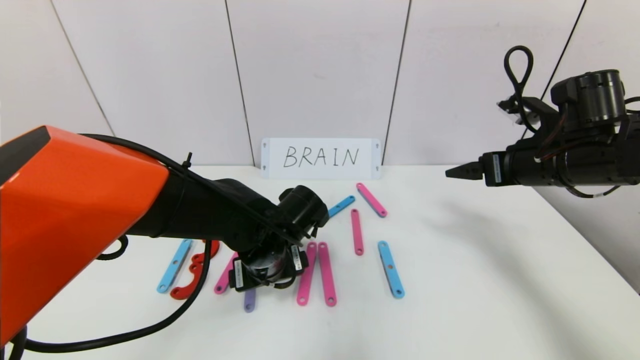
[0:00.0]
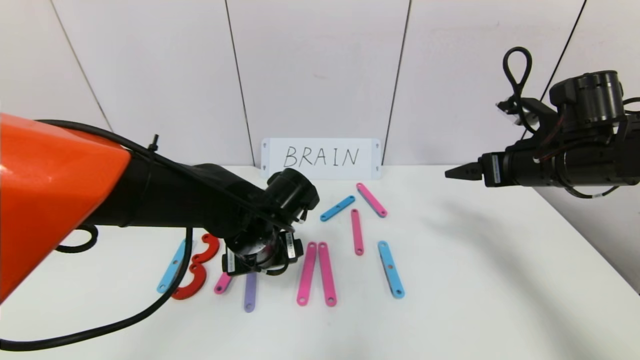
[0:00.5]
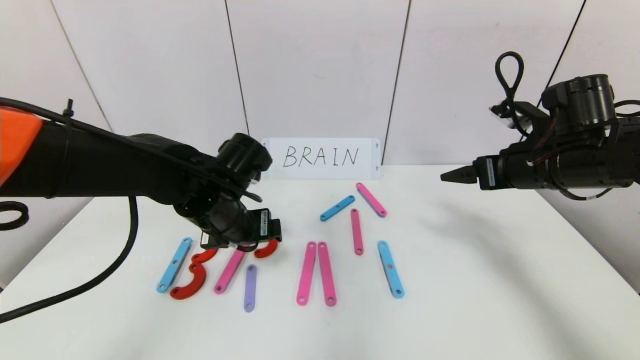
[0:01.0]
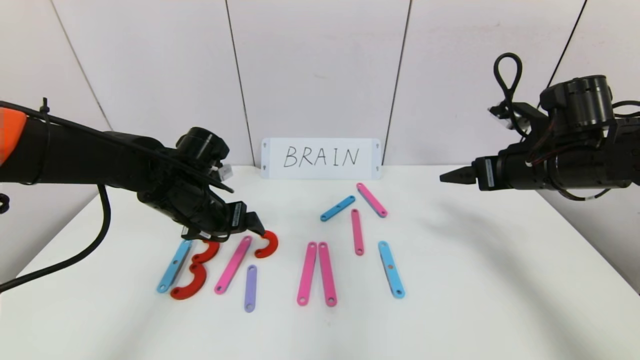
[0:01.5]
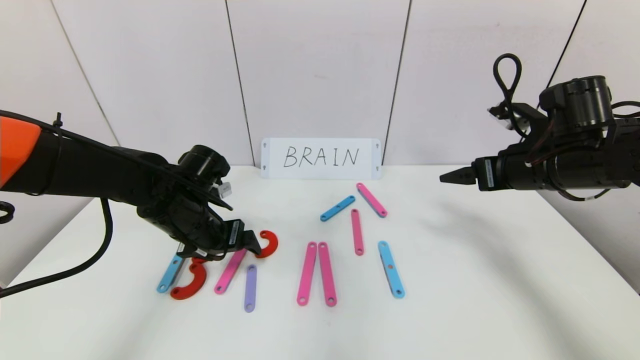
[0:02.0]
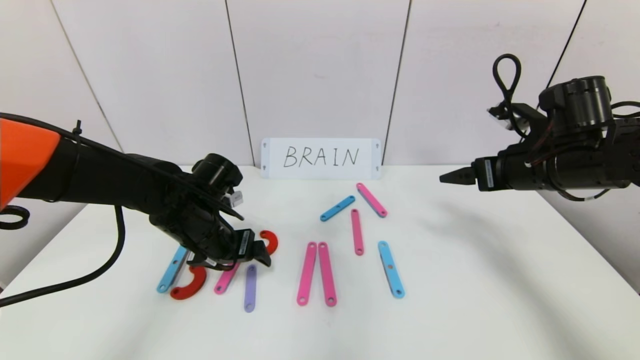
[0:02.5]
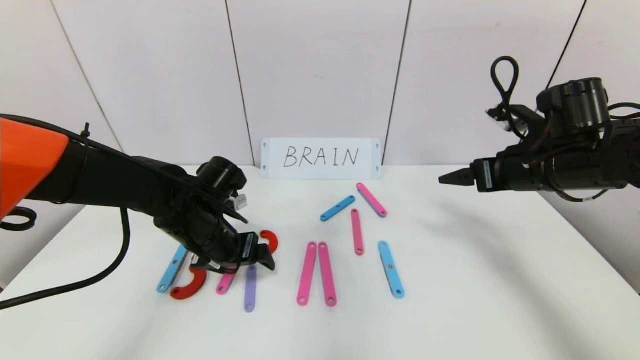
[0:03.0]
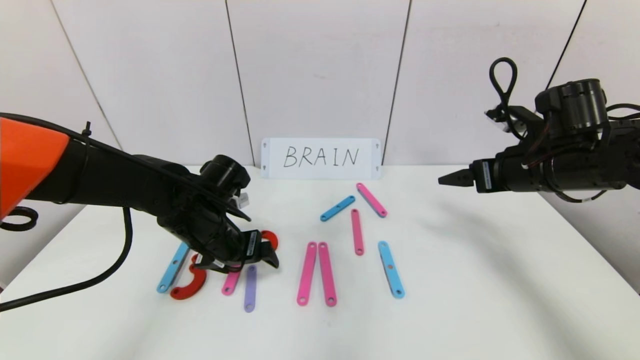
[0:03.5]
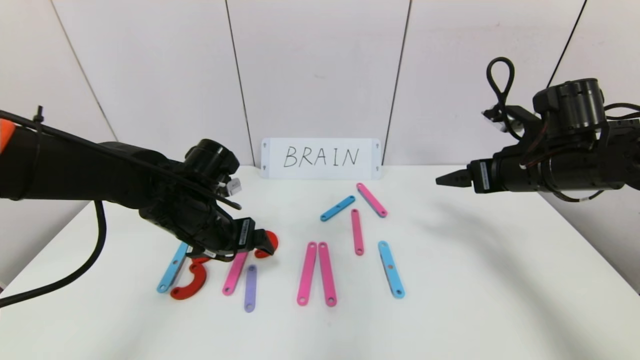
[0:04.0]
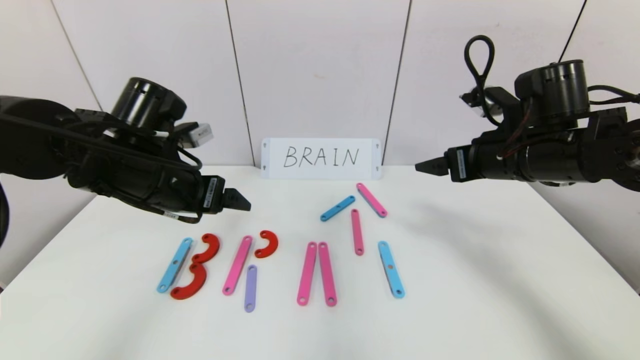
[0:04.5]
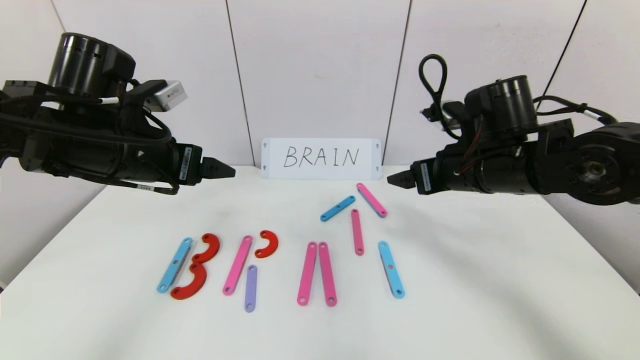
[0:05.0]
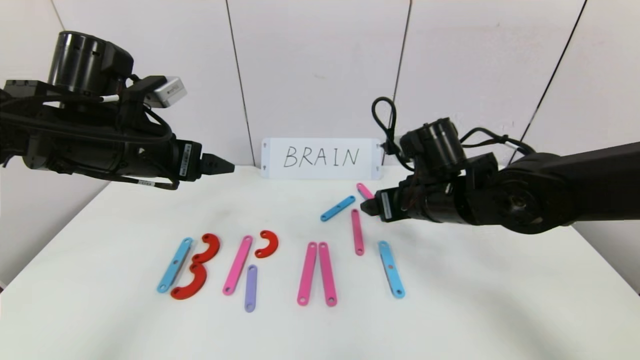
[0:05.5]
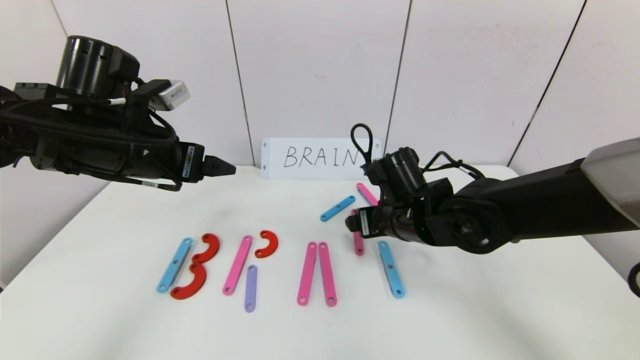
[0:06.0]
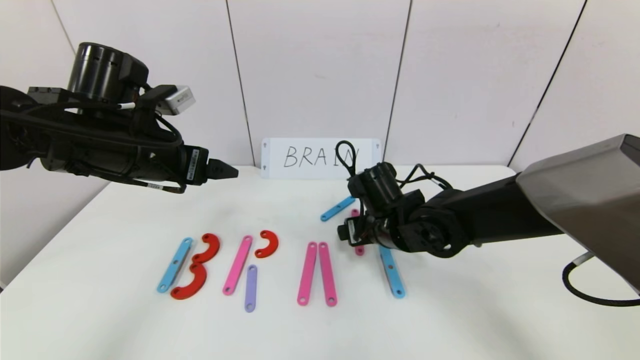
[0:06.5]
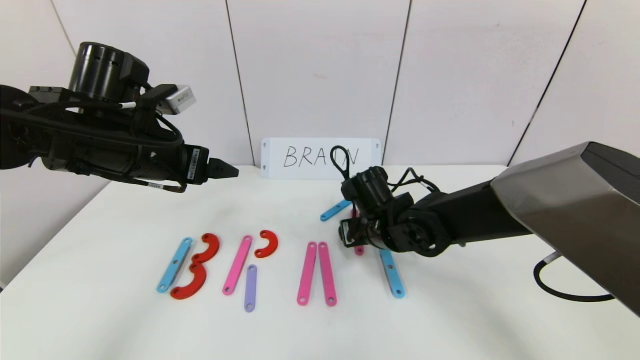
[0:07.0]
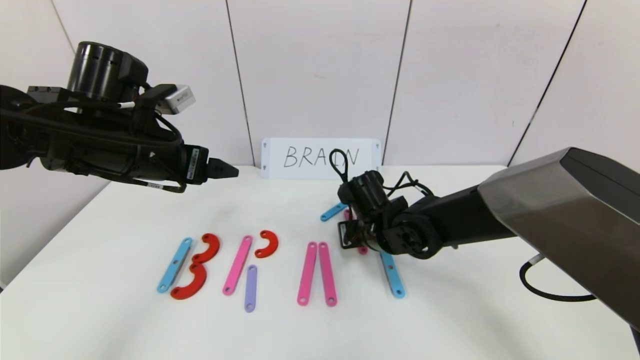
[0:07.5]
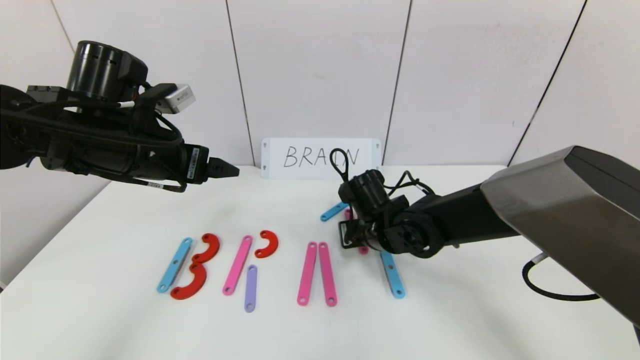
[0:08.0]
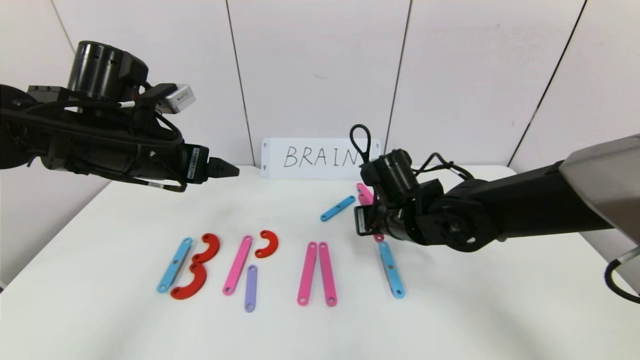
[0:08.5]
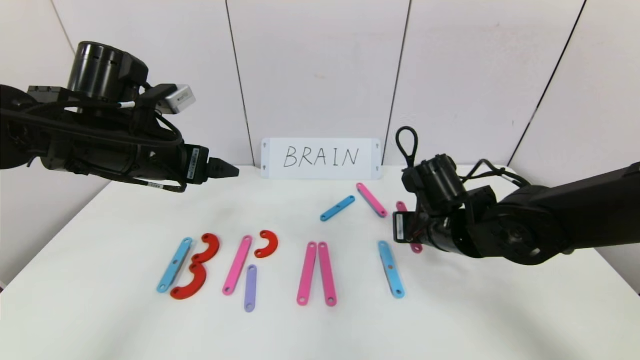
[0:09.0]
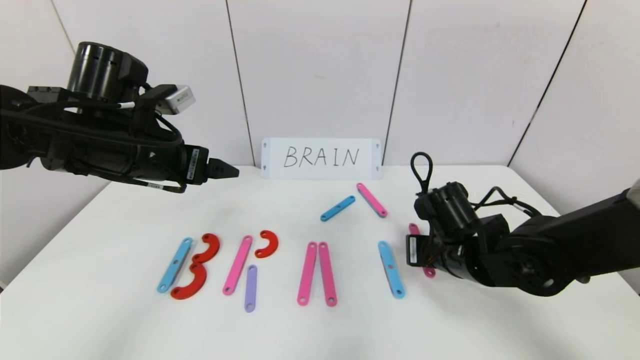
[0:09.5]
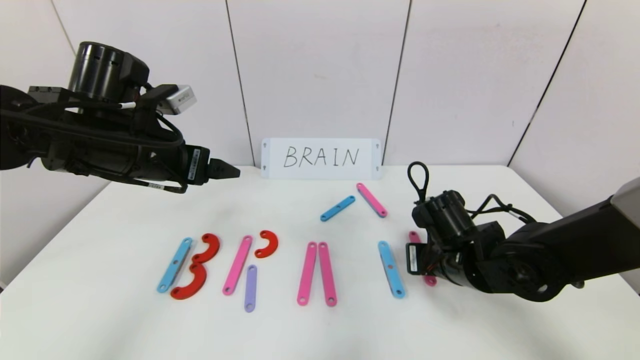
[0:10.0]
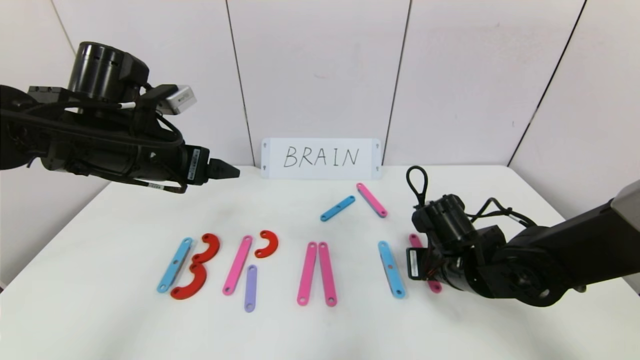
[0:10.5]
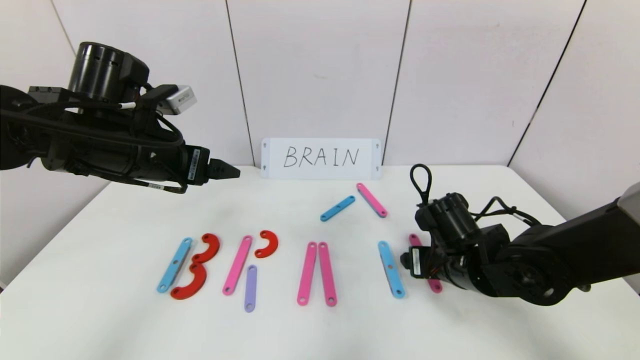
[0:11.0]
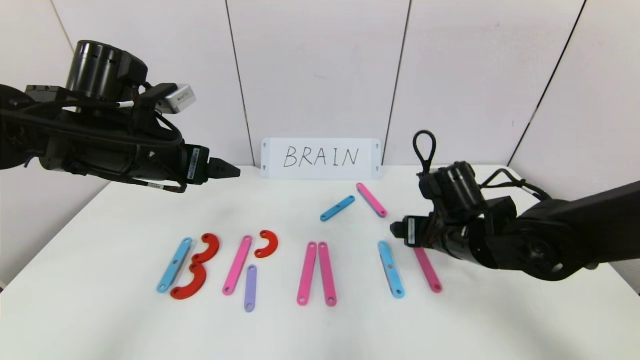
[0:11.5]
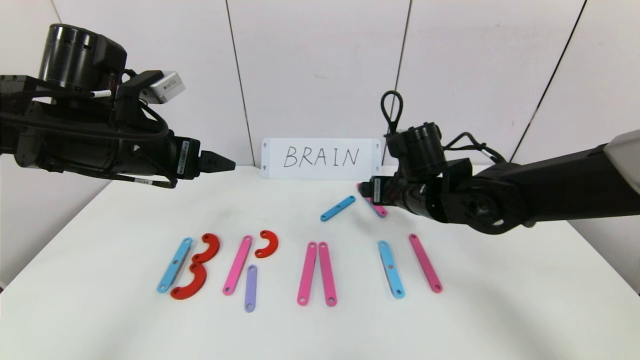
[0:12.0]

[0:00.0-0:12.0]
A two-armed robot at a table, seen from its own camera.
Task of the whole recording: rearrange the word baai as brain.
Step, 0:00.0 to 0:04.0: Place the character R between first character B and third character A.
0:00.0 to 0:02.0: The left gripper moves to the left, some 10 cm.
0:02.0 to 0:04.0: The grippers make only small movements.
0:04.0 to 0:06.0: The left gripper travels upward and to the left by roughly 10 cm. The right gripper is displaced to the left and downward by approximately 20 cm.
0:06.0 to 0:08.0: The right gripper ends up roughly 5 cm from where it was, and closes.
0:08.0 to 0:10.0: The right gripper is displaced to the right and backward by approximately 10 cm.
0:10.0 to 0:12.0: The right gripper shifts approximately 10 cm upward, forward and to the left, and opens up.

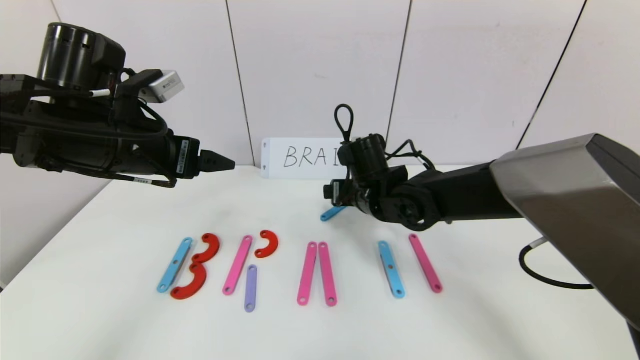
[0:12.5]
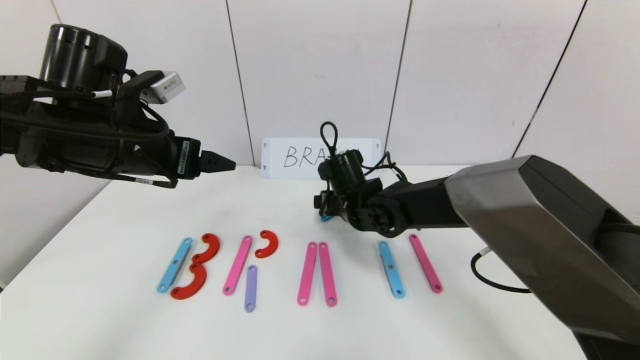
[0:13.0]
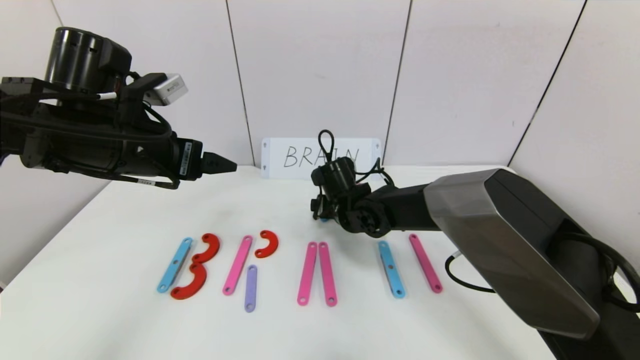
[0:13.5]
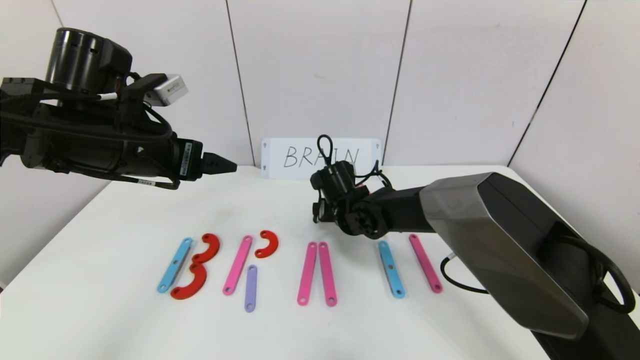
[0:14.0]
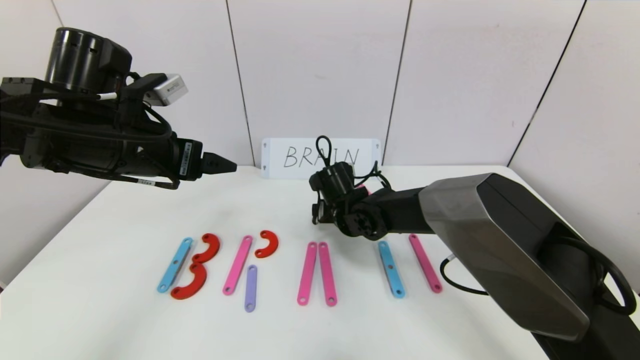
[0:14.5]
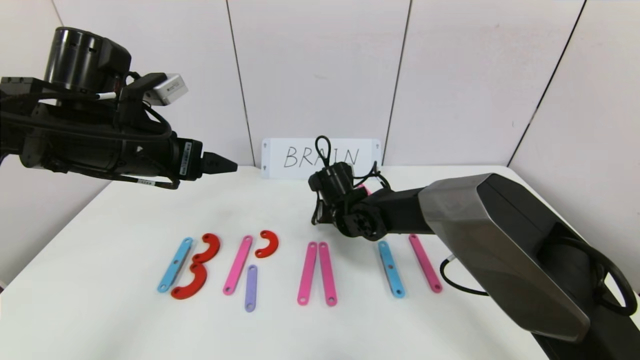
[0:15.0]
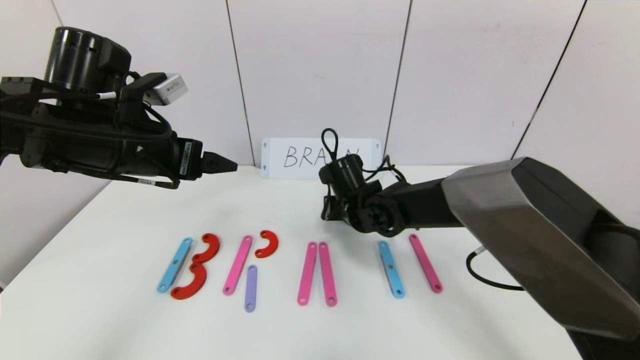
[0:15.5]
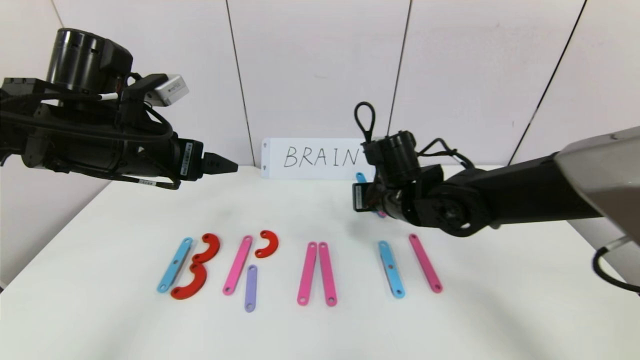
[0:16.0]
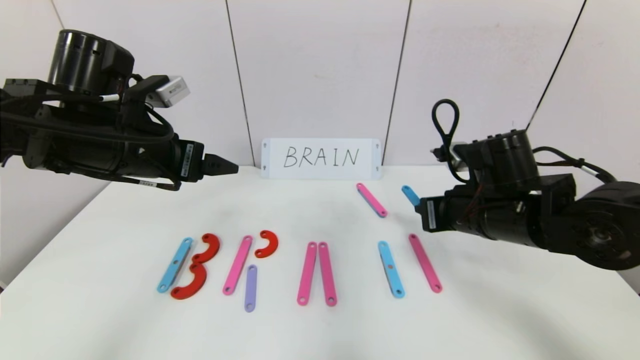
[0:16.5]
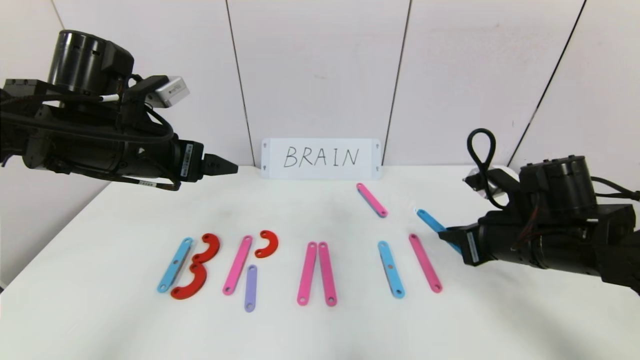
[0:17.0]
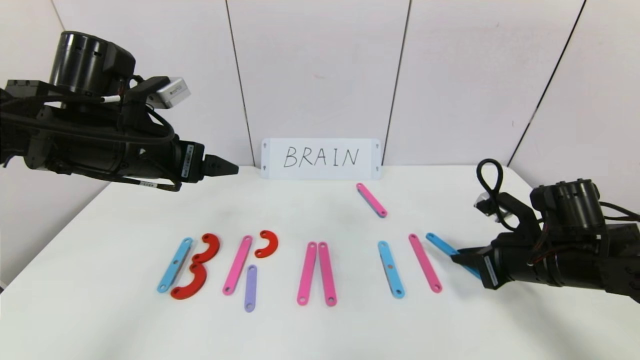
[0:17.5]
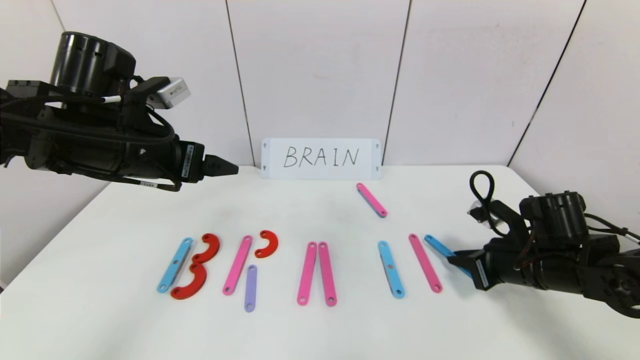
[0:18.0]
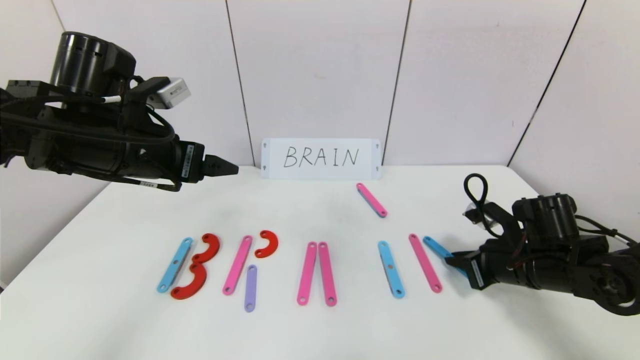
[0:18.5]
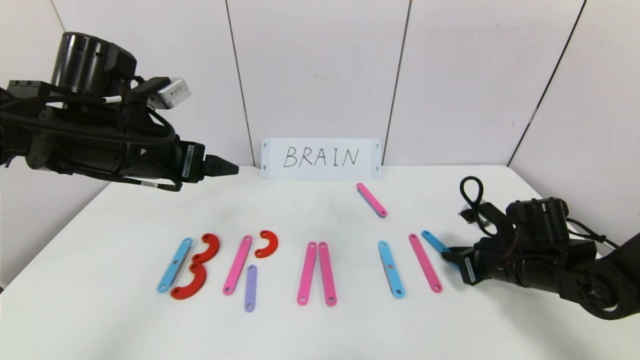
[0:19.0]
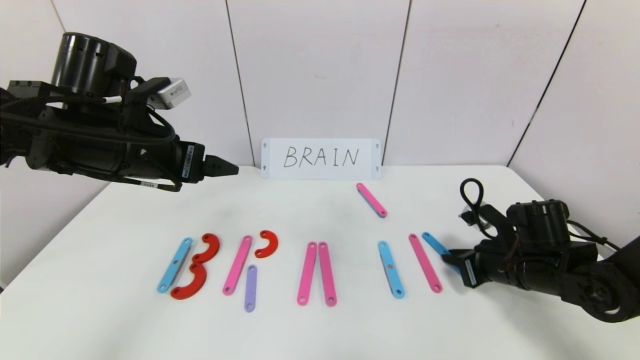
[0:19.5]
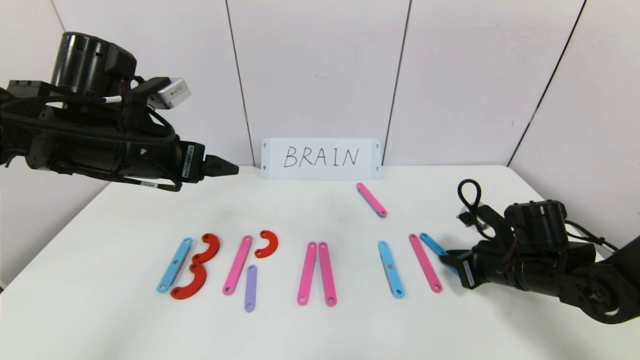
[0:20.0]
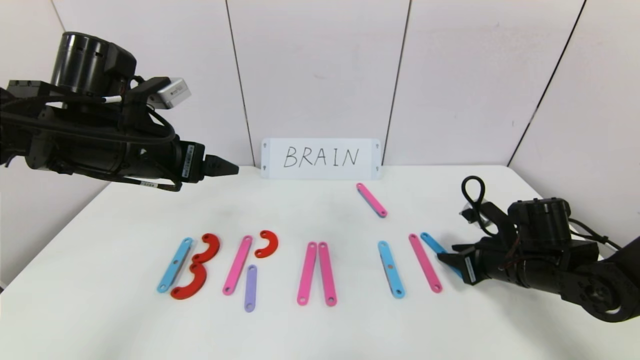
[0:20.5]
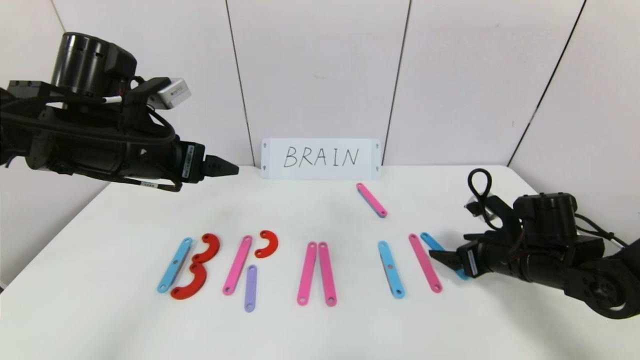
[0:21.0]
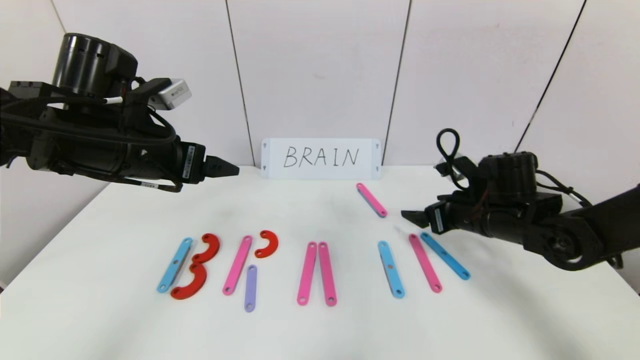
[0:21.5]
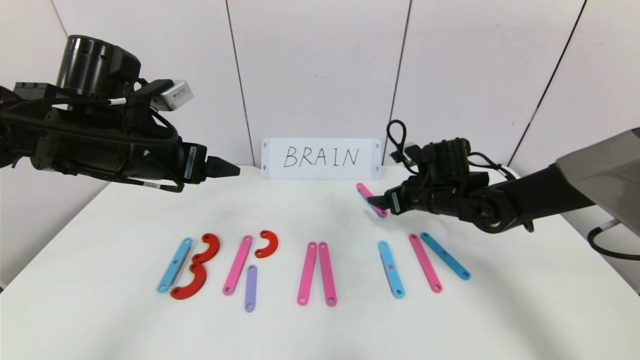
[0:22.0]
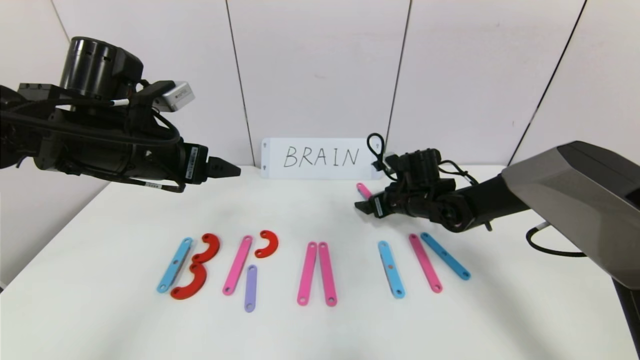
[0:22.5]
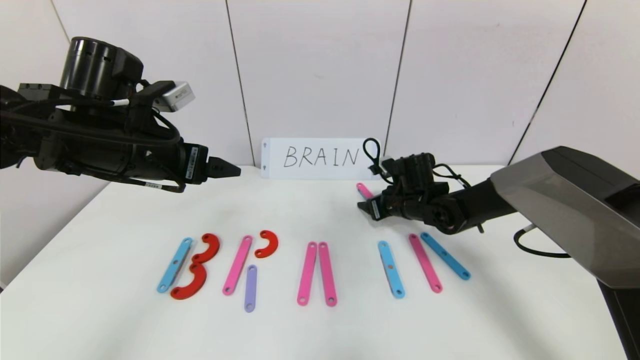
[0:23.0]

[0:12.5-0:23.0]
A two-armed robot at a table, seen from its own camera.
Task of the whole recording: rearrange the word baai as brain.
0:12.5 to 0:14.5: The right gripper travels downward by some 5 cm.
0:14.5 to 0:16.5: The right gripper moves to the right, backward and upward, some 25 cm, and closes its fingers.
0:16.5 to 0:19.0: The right gripper goes roughly 15 cm downward and to the right.
0:19.0 to 0:21.0: The right gripper opens.
0:21.0 to 0:23.0: The right gripper is displaced forward and to the left by approximately 20 cm, and closes.
